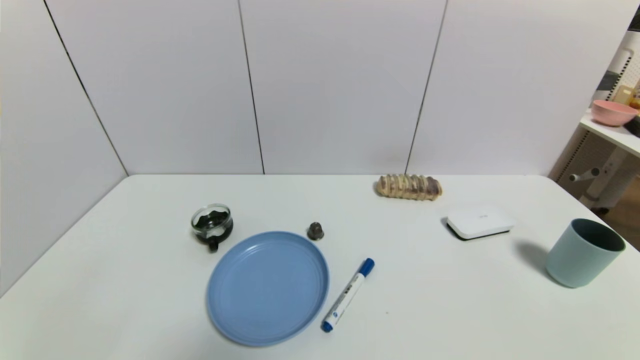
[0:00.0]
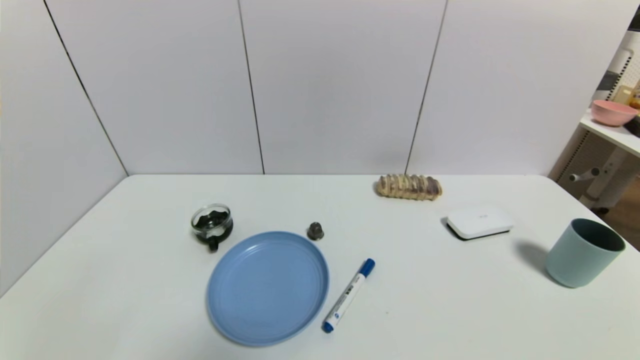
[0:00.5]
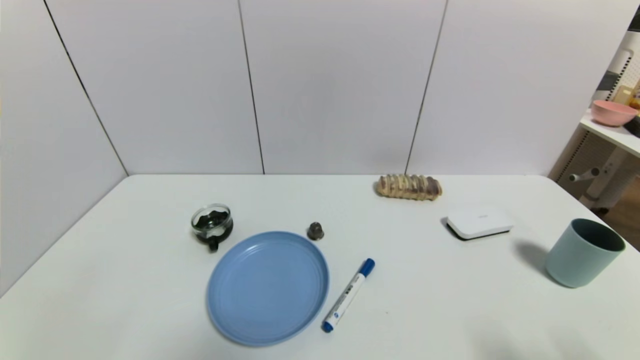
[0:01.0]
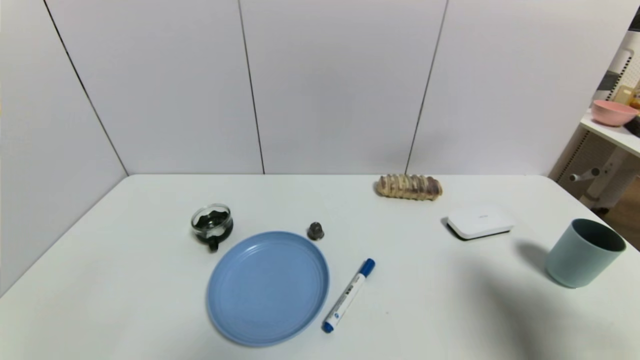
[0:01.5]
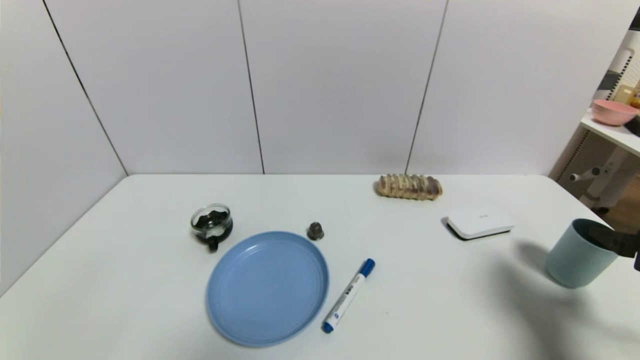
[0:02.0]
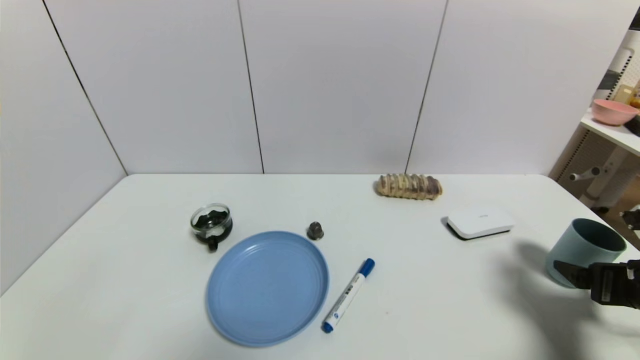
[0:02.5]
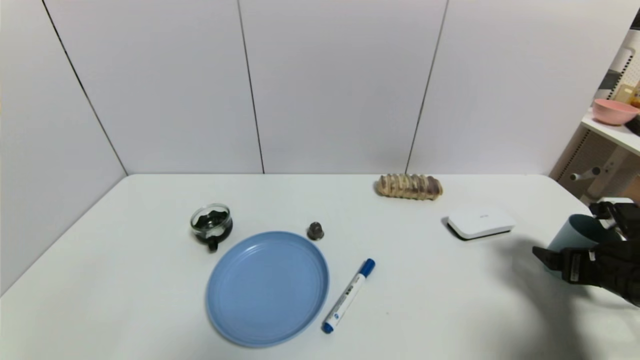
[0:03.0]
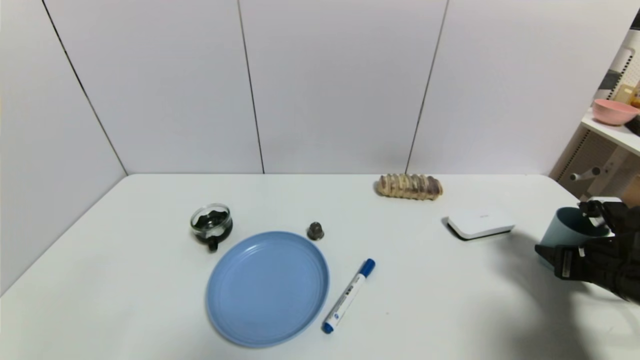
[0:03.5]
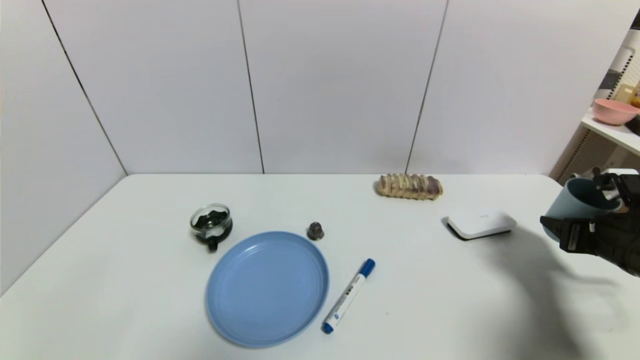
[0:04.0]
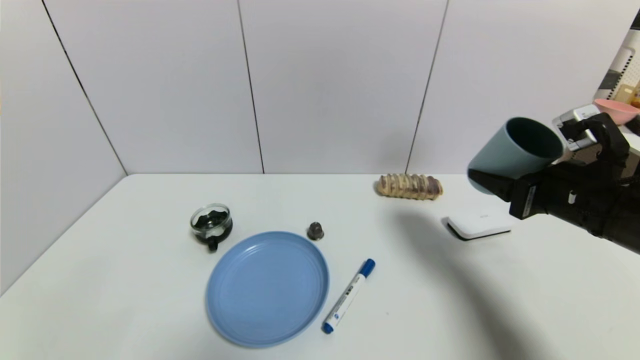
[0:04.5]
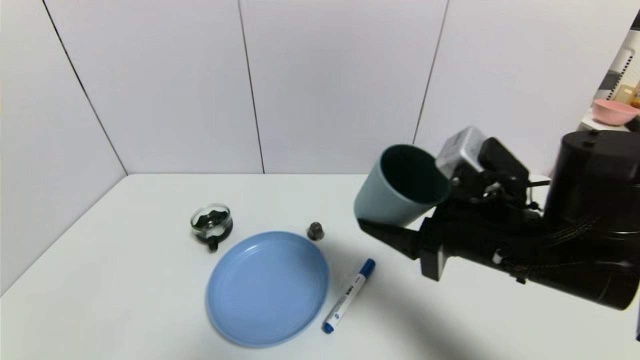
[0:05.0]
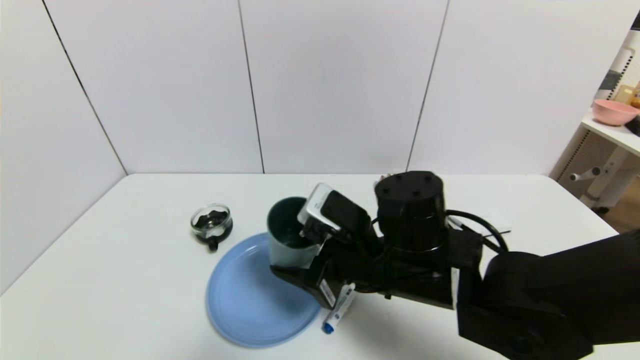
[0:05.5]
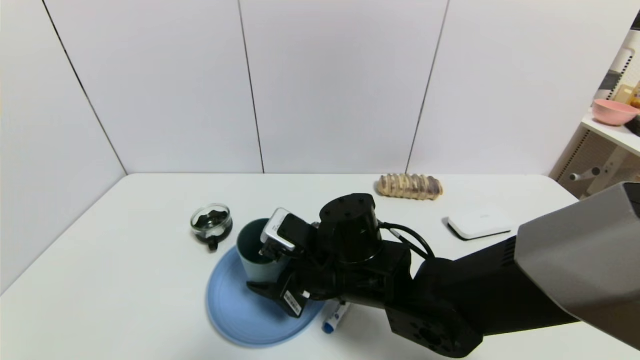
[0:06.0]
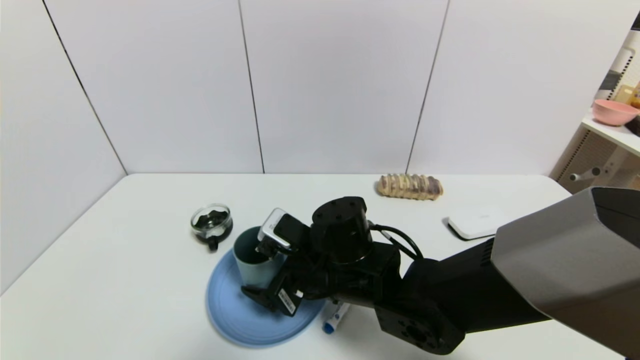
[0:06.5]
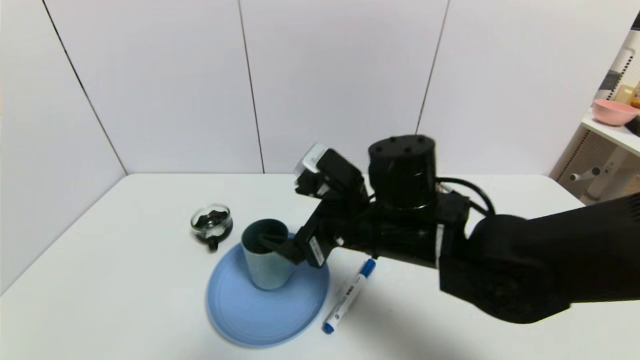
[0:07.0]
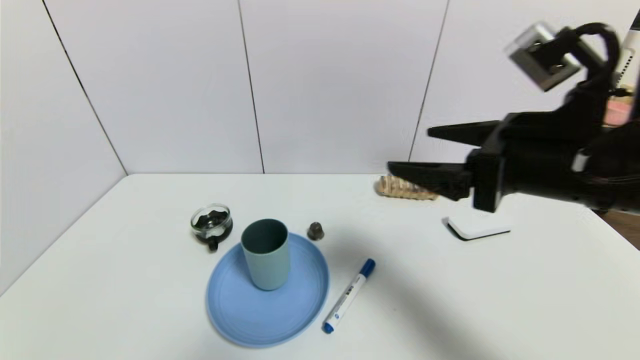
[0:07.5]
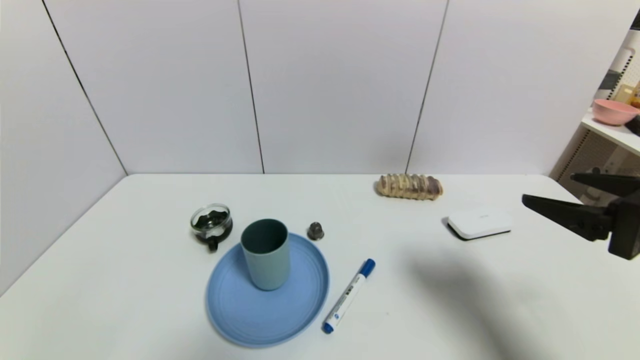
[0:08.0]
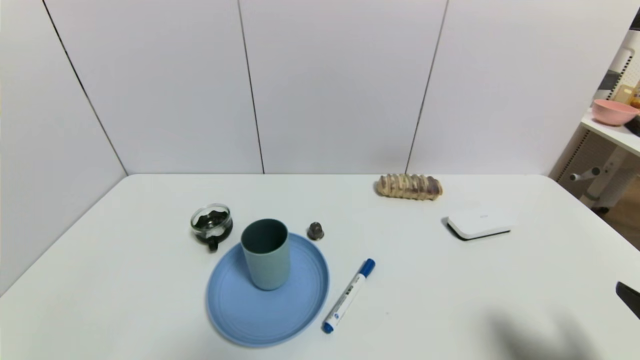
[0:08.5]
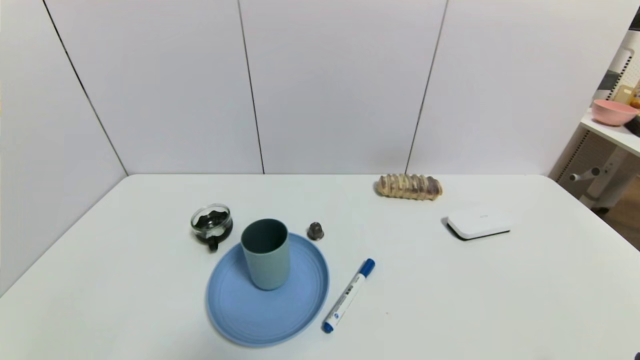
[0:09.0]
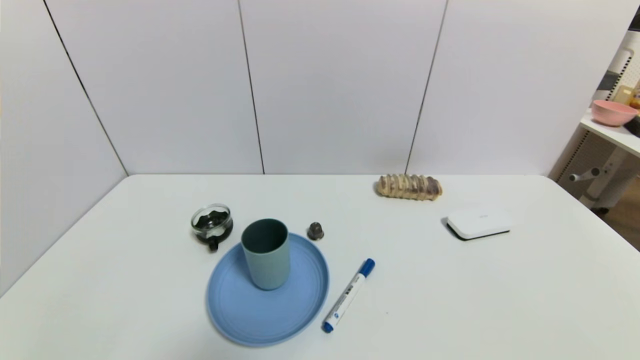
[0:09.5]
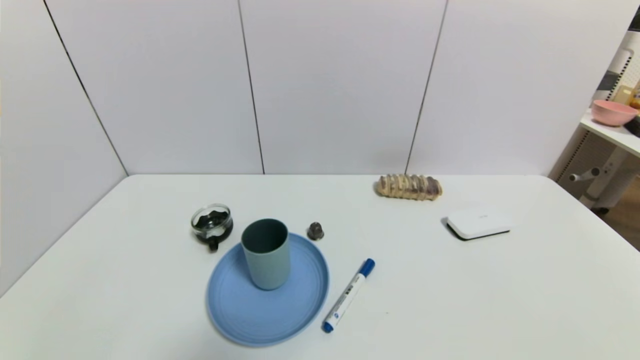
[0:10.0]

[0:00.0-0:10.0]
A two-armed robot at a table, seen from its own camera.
Task of the whole recording: use a gripper to pick the target object and place on the blue plate.
Step, 0:00.0 to 0:03.0: Grasp the blue cup with the right gripper.
Step, 0:03.5 to 0:07.0: Place the blue cup on the blue plate with the right gripper.
0:00.0 to 0:02.0: The right gripper moves forward and upward, some 20 cm.
0:02.0 to 0:04.0: The right gripper is displaced forward and downward by roughly 10 cm, and closes its fingers.
0:04.0 to 0:06.0: The right gripper moves to the left, roughly 35 cm.
0:06.0 to 0:08.0: The right gripper shifts about 30 cm to the right and upward, and opens its fingers.
0:08.0 to 0:10.0: The right gripper travels downward and backward by about 25 cm.

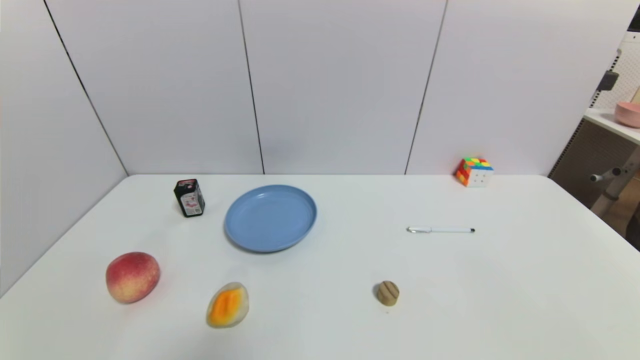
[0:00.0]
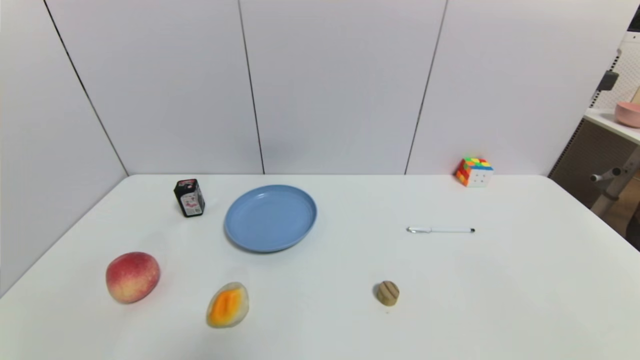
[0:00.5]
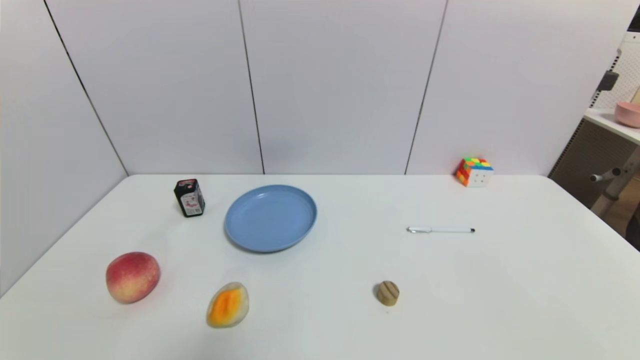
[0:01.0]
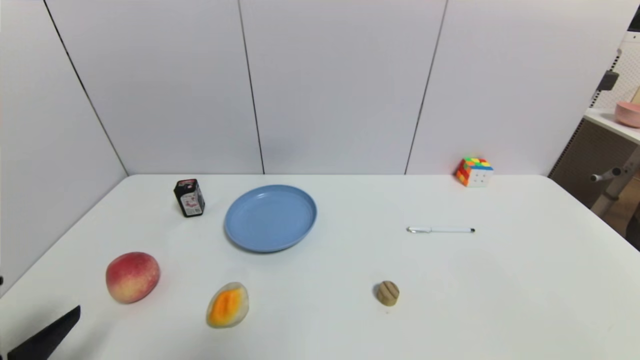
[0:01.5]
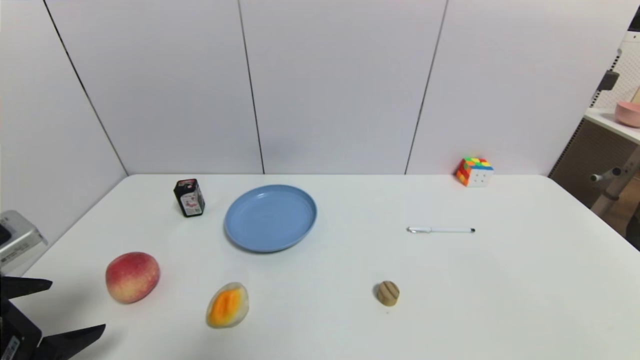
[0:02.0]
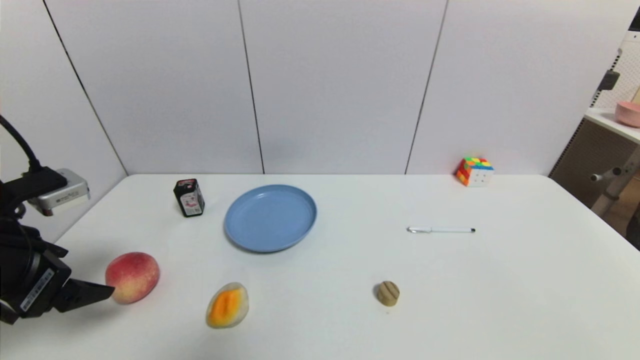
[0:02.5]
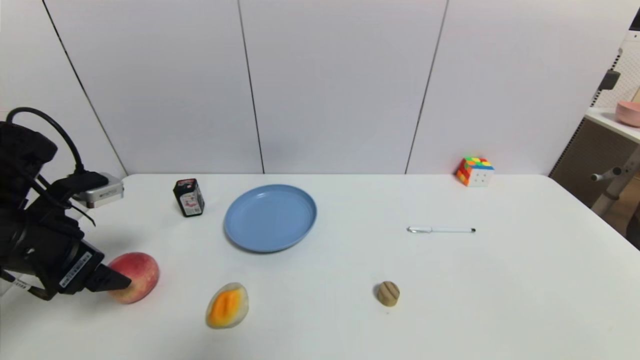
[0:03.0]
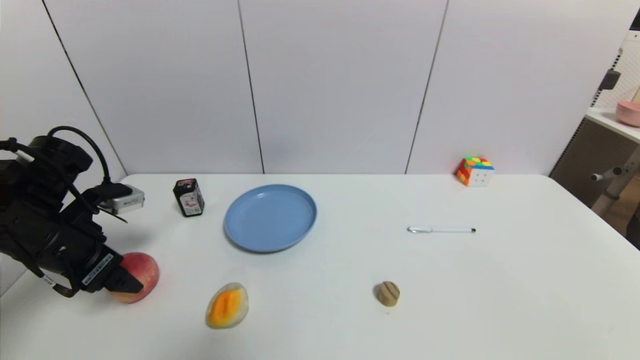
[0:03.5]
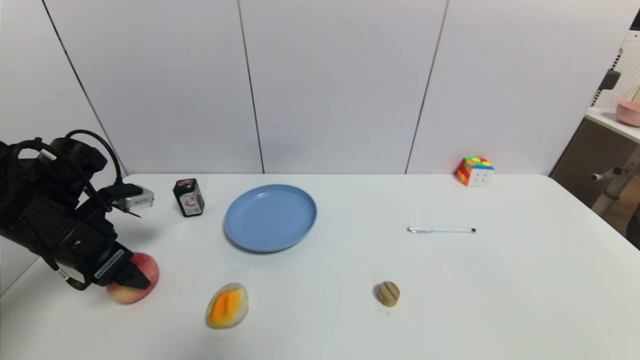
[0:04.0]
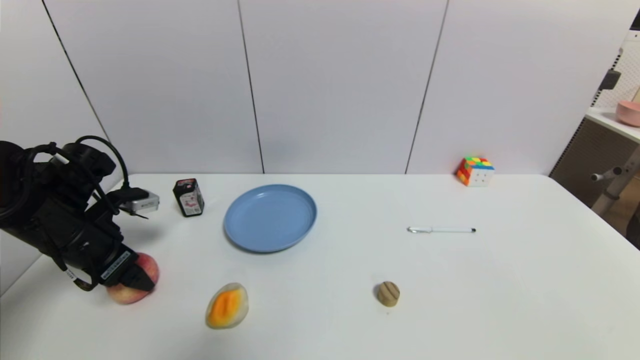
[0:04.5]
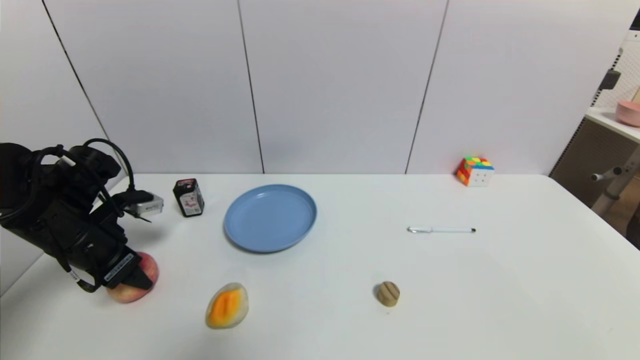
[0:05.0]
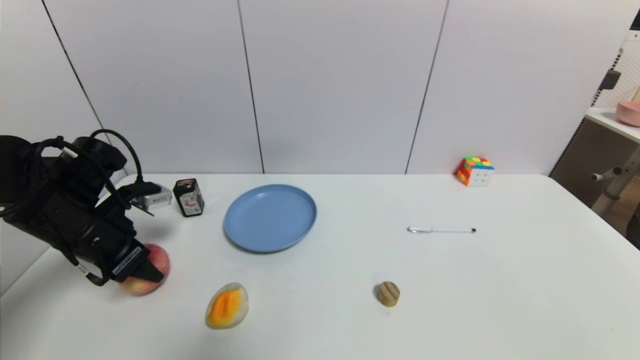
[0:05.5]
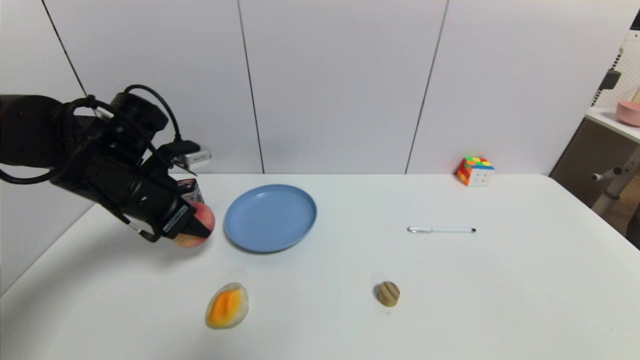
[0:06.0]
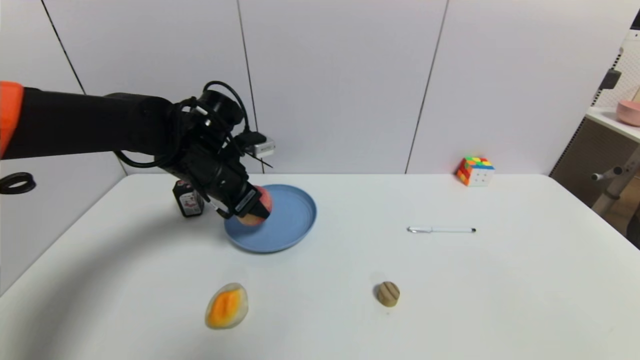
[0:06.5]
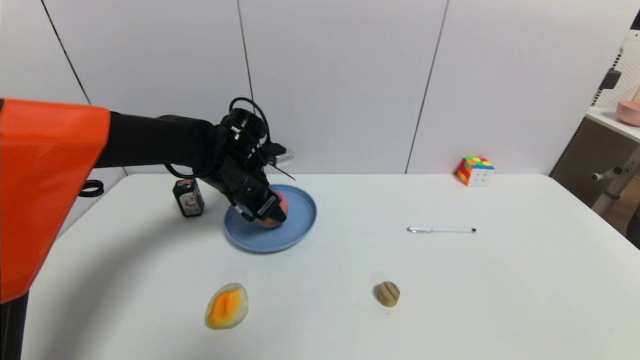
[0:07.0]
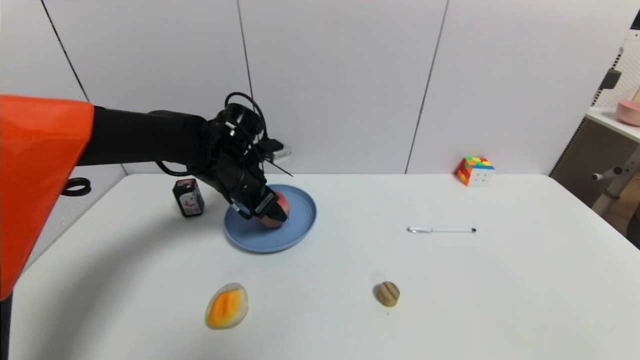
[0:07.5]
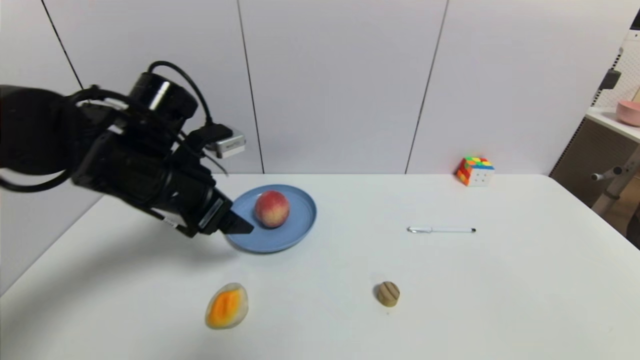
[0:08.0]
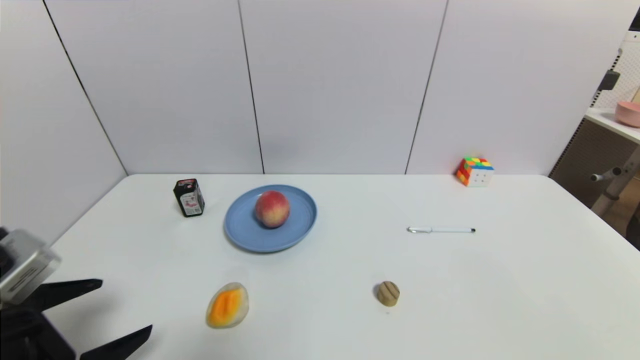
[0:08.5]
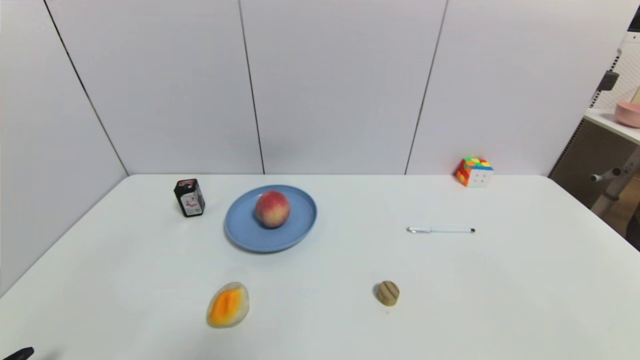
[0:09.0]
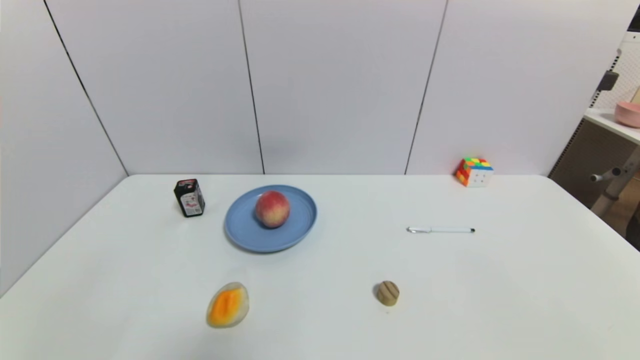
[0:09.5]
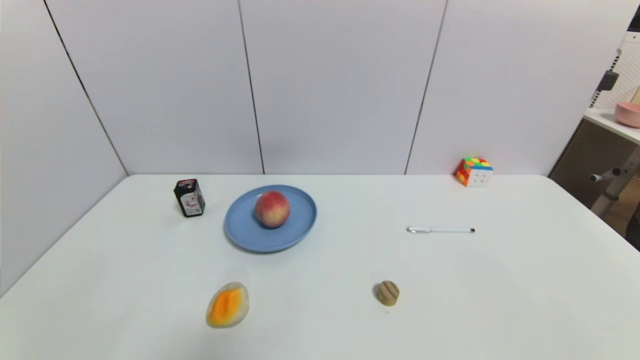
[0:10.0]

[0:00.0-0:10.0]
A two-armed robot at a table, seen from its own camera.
Task of the whole recording: use a gripper to pick the target object and place on the blue plate.
Step, 0:00.0 to 0:04.5: Grasp the peach with the left gripper.
Step, 0:05.0 to 0:07.0: Place the peach on the blue plate with the left gripper.
0:00.0 to 0:02.0: The left gripper moves upward and forward, roughly 20 cm.
0:02.0 to 0:04.0: The left gripper shifts roughly 15 cm forward.
0:04.0 to 0:06.0: The left gripper moves to the right, roughly 10 cm, and closes its fingers.
0:06.0 to 0:08.0: The left gripper goes forward and returns, approximately 10 cm each way, and opens.
0:08.0 to 0:10.0: The left gripper is displaced backward and downward by some 30 cm.
